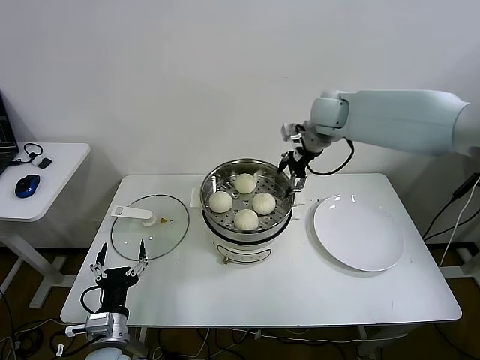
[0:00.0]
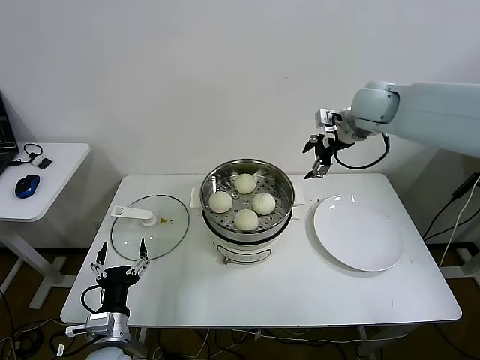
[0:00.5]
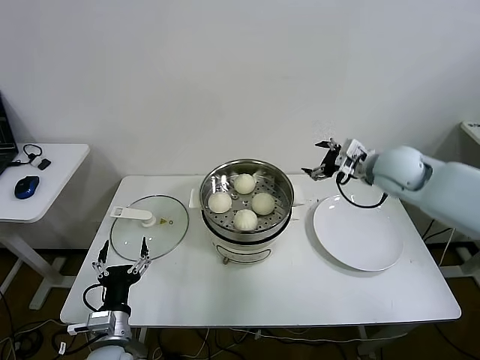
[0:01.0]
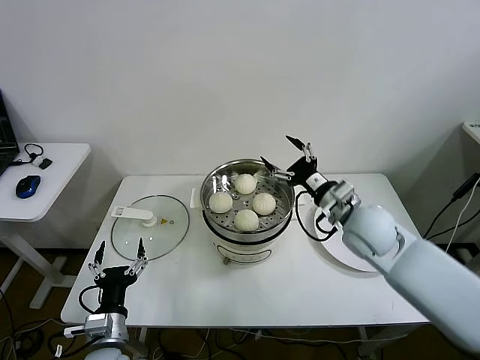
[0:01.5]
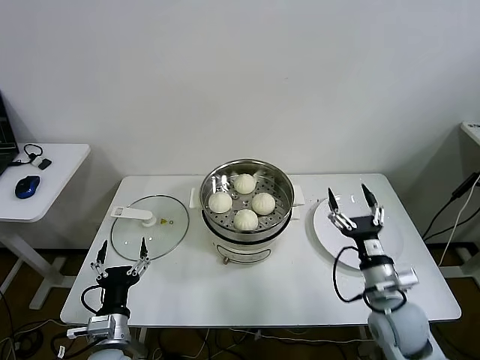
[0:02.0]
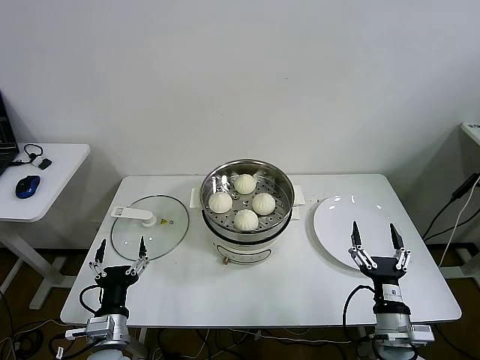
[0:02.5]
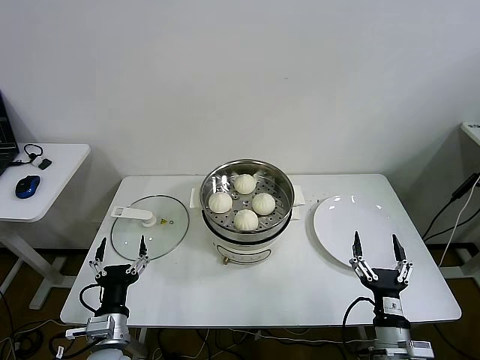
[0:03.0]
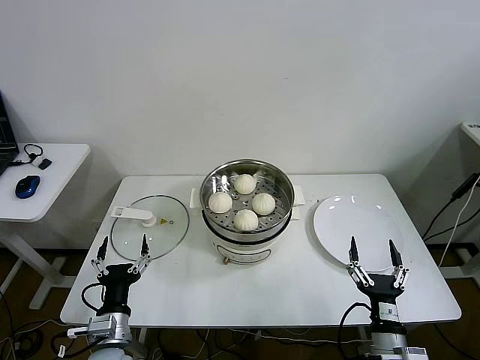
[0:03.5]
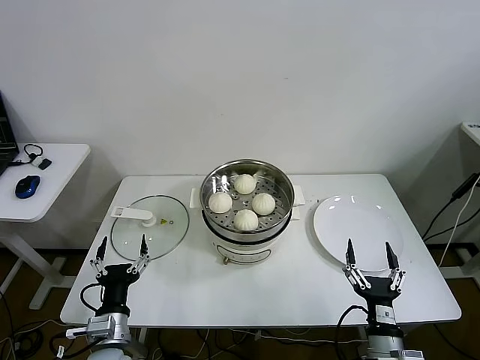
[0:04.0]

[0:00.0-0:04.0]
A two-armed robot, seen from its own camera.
0:00.0 to 0:02.0: The right gripper travels backward and downward by roughly 40 cm.
0:02.0 to 0:04.0: The right gripper shifts about 15 cm backward and downward.

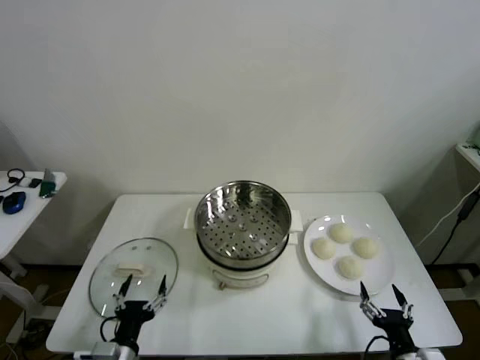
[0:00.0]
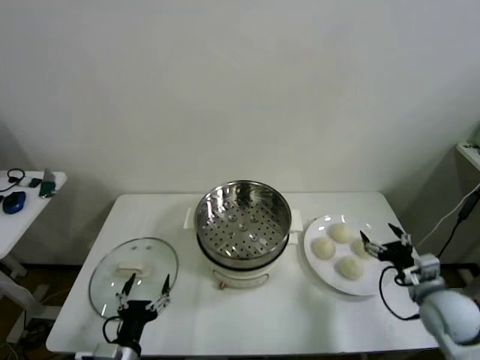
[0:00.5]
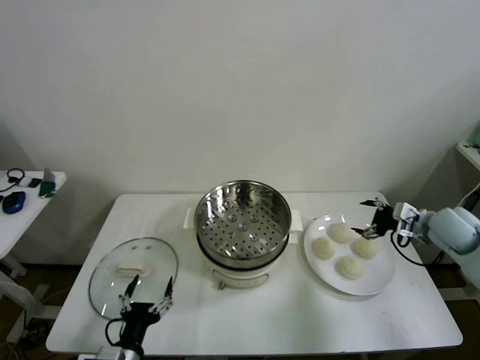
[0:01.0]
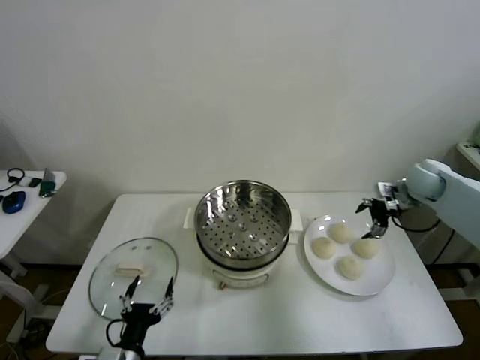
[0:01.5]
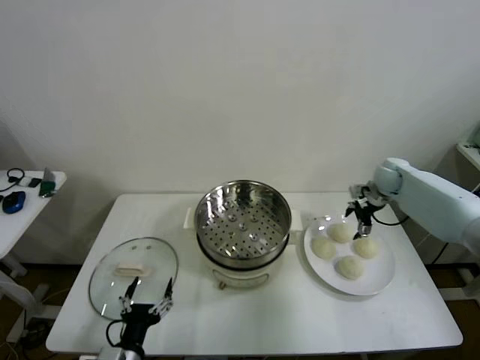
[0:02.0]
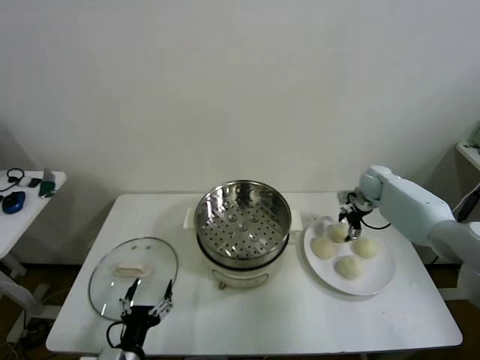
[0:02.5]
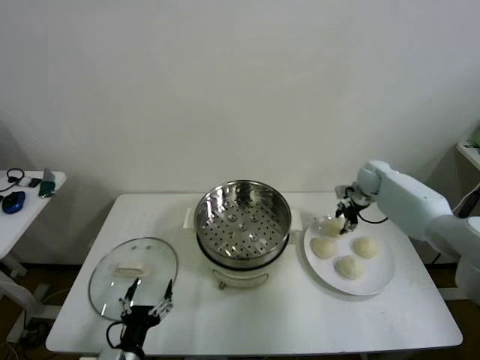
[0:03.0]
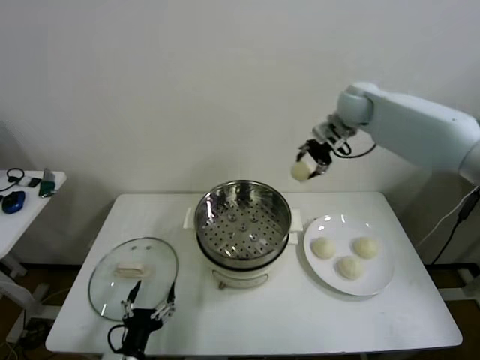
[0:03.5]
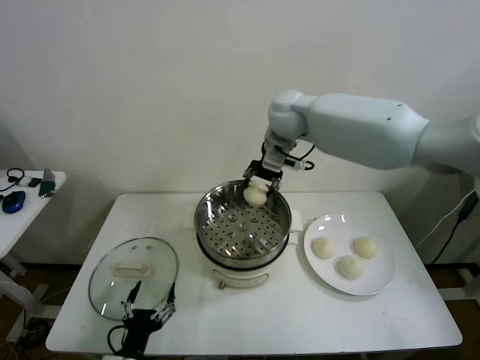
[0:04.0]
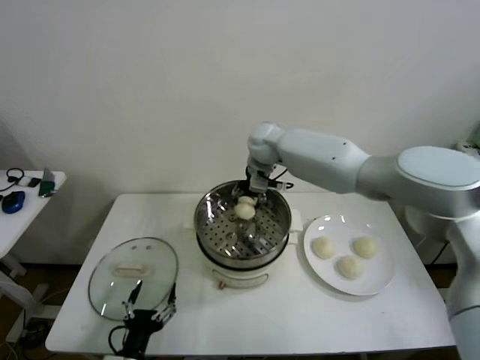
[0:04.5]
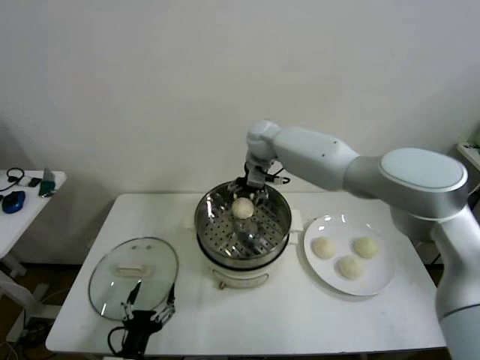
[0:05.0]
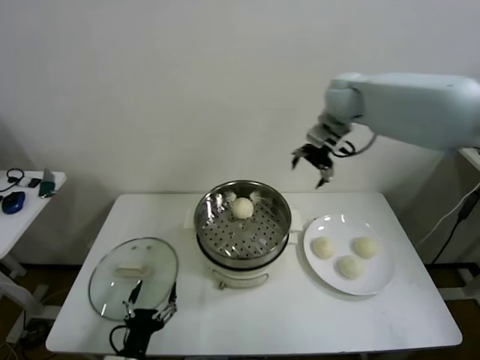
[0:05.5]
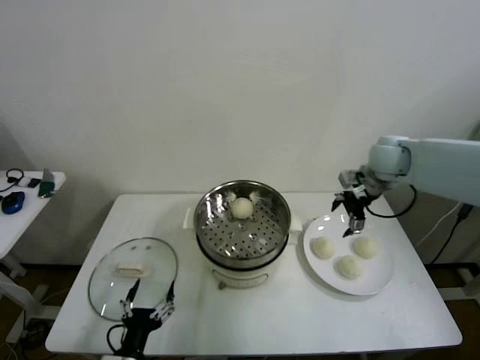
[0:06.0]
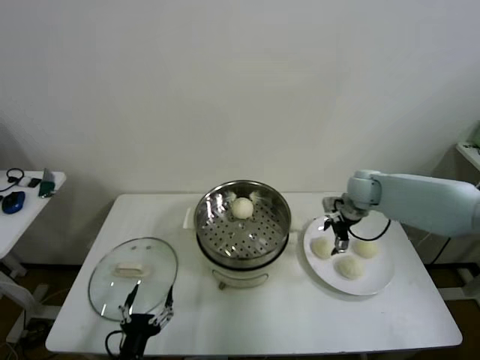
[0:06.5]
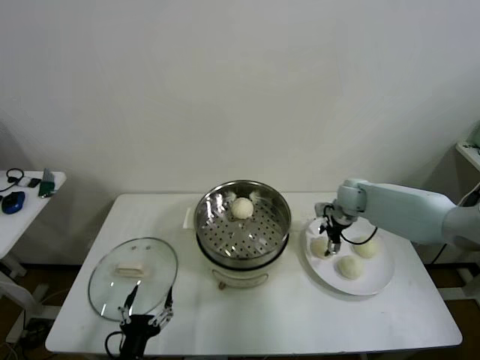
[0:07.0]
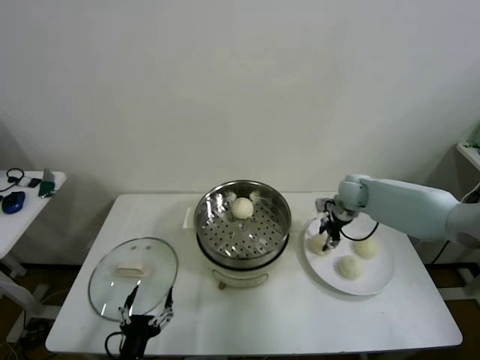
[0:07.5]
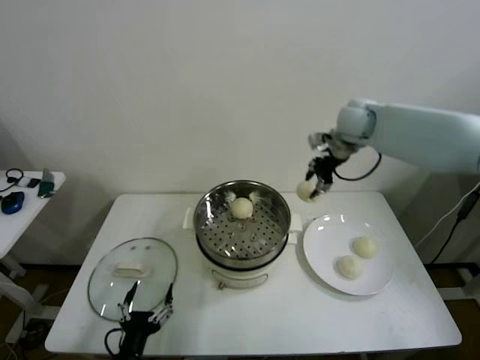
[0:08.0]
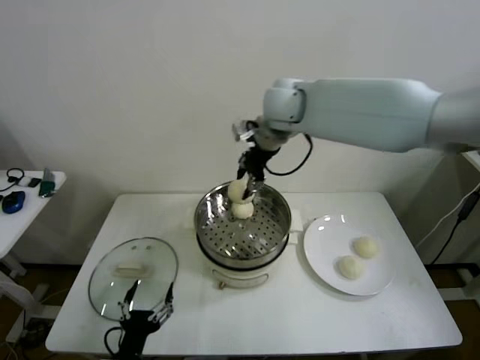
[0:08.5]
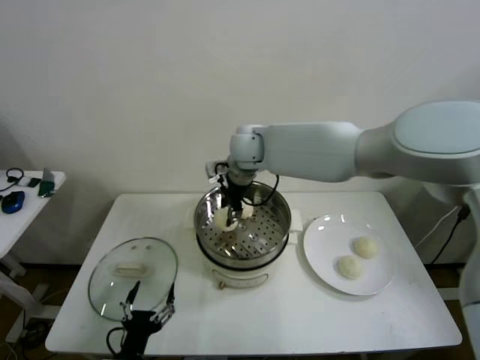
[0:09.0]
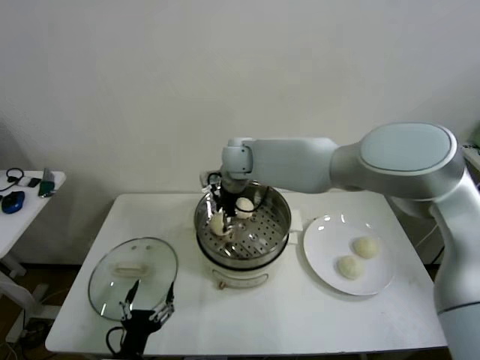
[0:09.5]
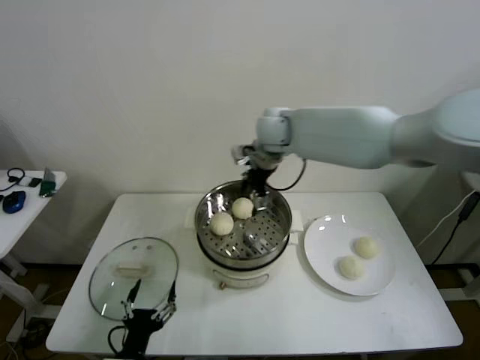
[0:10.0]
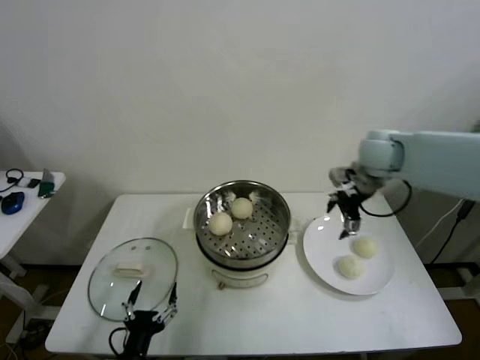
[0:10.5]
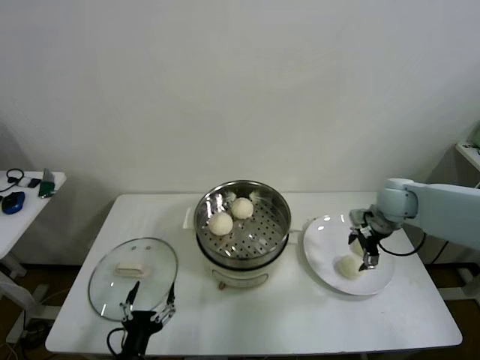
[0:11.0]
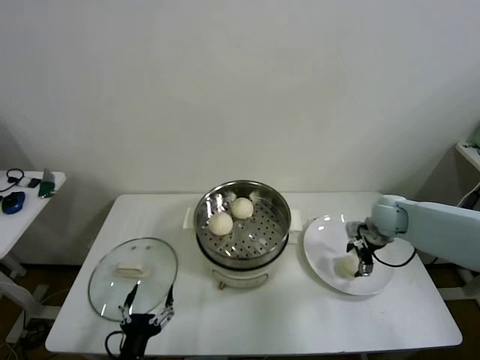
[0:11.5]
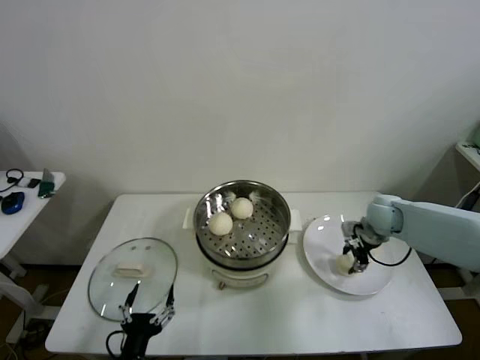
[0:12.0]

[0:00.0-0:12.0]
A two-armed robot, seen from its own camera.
Step, 0:00.0 to 0:02.5: Grasp the baozi in the plate with right gripper.
Step, 0:03.0 to 0:04.5: Place the baozi on the steamer with right gripper.
Step, 0:05.0 to 0:07.0: Grasp the baozi in the plate with right gripper.
Step, 0:07.5 to 0:09.5: Place the baozi on the steamer with right gripper.
Step, 0:10.0 to 0:11.5: Grasp the baozi in the plate with right gripper.
0:02.0 to 0:04.0: The right gripper travels to the left and upward by about 35 cm, and closes its fingers.
0:04.0 to 0:06.0: The right gripper moves to the right, some 25 cm, and opens its fingers.
0:06.0 to 0:08.0: The right gripper goes roughly 15 cm upward, to the left and forward, and closes.
0:08.0 to 0:10.0: The right gripper moves to the left, approximately 10 cm, and opens.
0:10.0 to 0:12.0: The right gripper heads to the right and downward, covering about 35 cm, and closes.

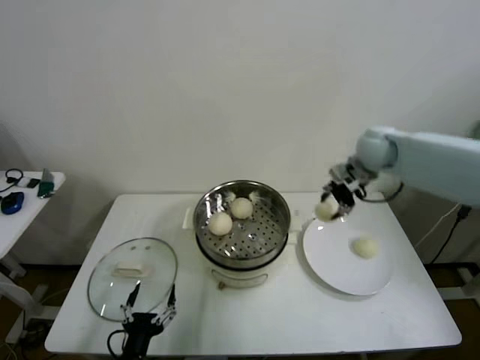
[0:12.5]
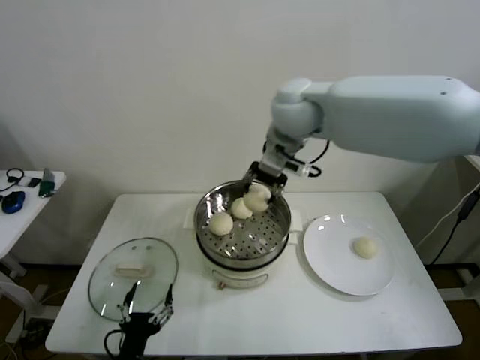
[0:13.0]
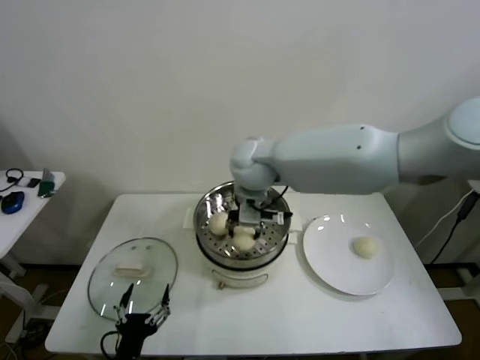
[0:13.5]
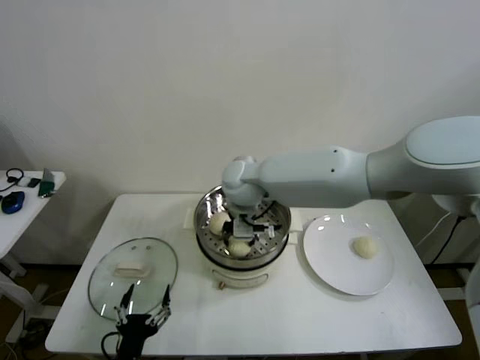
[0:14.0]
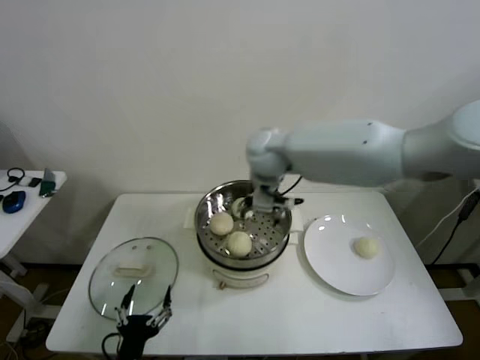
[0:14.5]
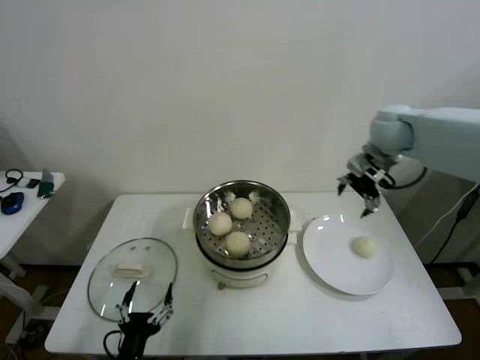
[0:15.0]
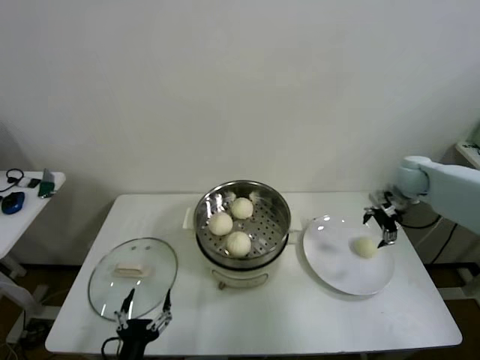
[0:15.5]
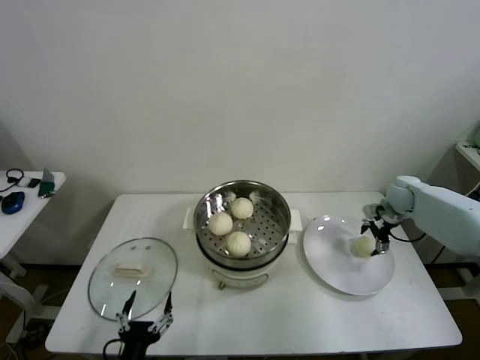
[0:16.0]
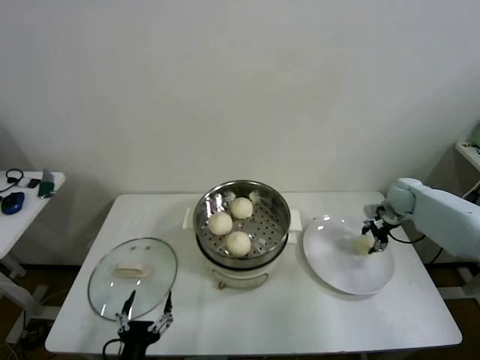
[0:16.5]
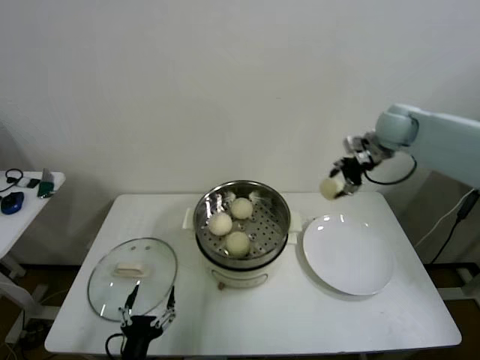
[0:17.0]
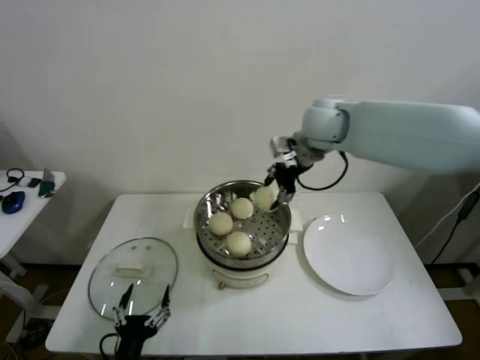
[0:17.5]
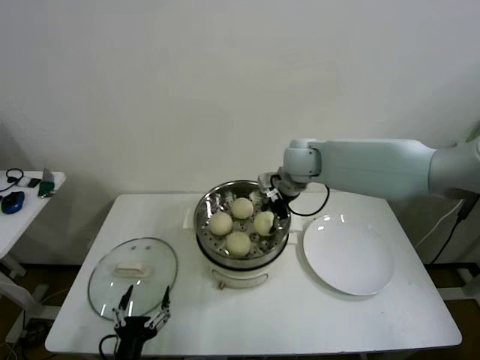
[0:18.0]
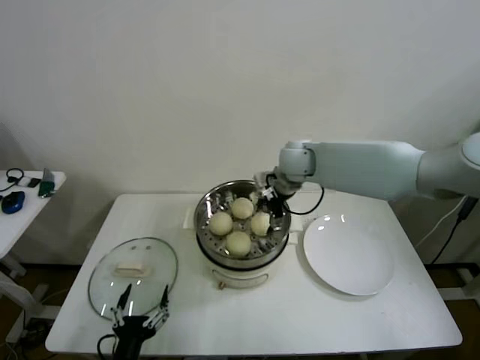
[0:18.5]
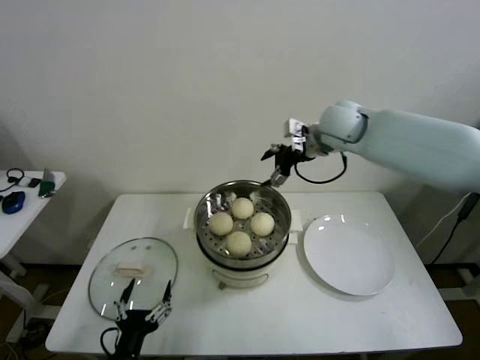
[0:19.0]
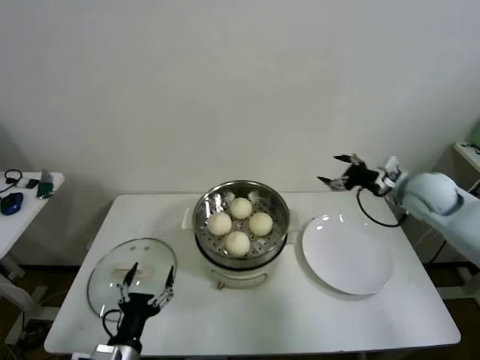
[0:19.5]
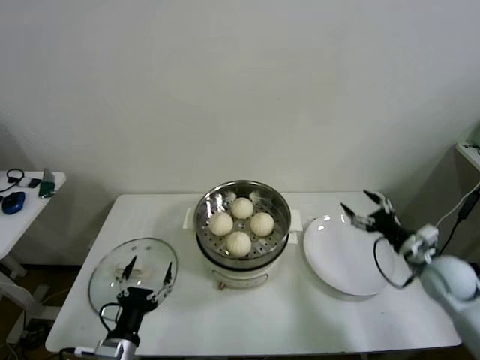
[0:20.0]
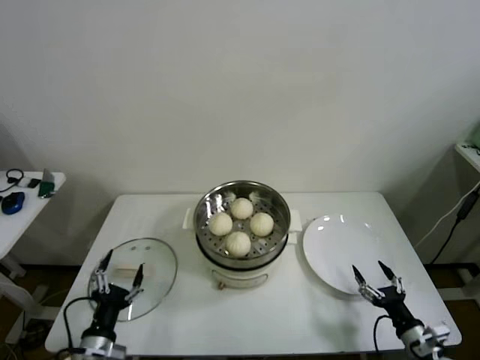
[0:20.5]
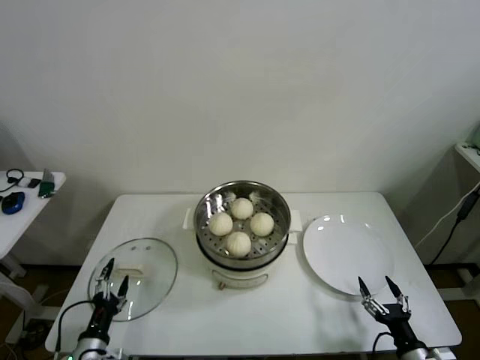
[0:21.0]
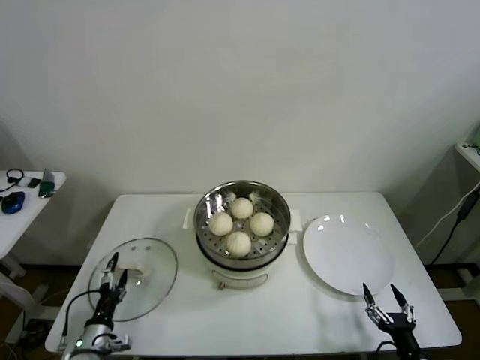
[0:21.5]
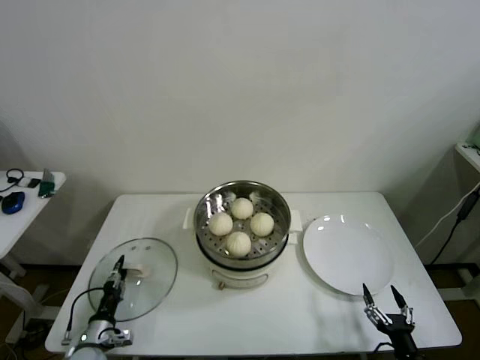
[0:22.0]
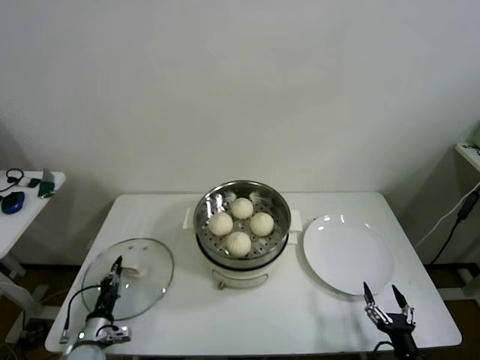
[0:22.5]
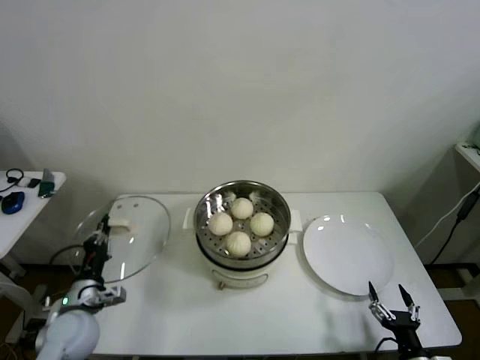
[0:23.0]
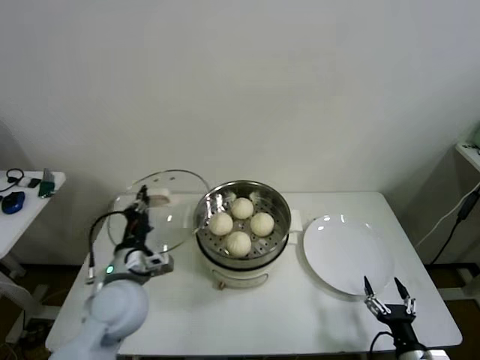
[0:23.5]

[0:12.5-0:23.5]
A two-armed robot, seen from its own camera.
Step, 0:12.5 to 0:14.0: Place the baozi on the steamer with right gripper.
Step, 0:14.5 to 0:16.0: Grasp the baozi in the plate with right gripper.
Step, 0:16.5 to 0:18.0: Place the baozi on the steamer with right gripper.
Step, 0:18.5 to 0:22.0: Grasp the pot lid with left gripper.
0:12.5 to 0:14.5: The right gripper heads to the left, covering roughly 20 cm, and opens up.
0:14.5 to 0:16.0: The right gripper shifts some 40 cm to the right and downward.
0:16.0 to 0:18.0: The right gripper goes approximately 35 cm to the left and upward, and closes up.
0:18.0 to 0:20.0: The left gripper heads forward, covering roughly 5 cm, while the right gripper shifts approximately 40 cm to the right, backward and downward, and opens.
0:20.0 to 0:21.5: The right gripper heads backward and downward, covering approximately 30 cm. The left gripper travels to the left and downward by about 15 cm.
0:21.5 to 0:23.5: The left gripper shifts some 25 cm upward and to the right, and closes.
